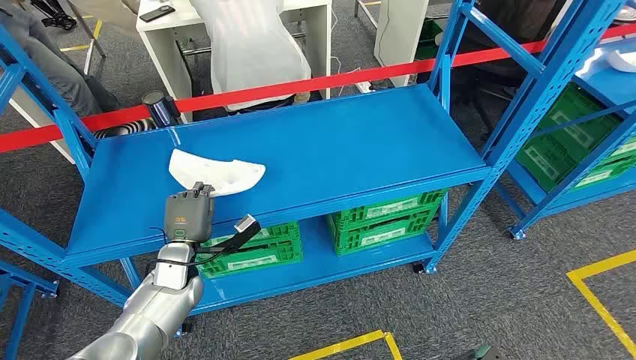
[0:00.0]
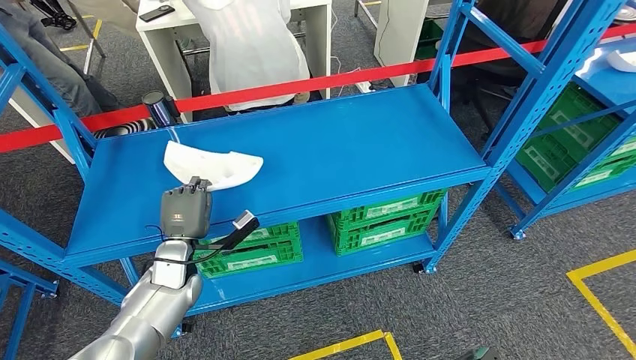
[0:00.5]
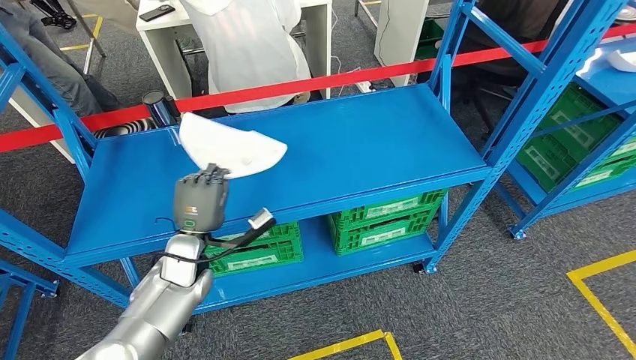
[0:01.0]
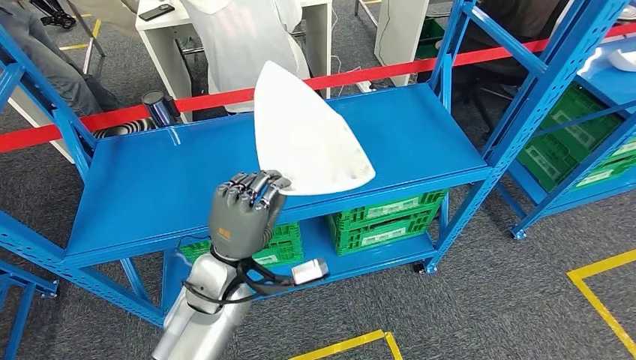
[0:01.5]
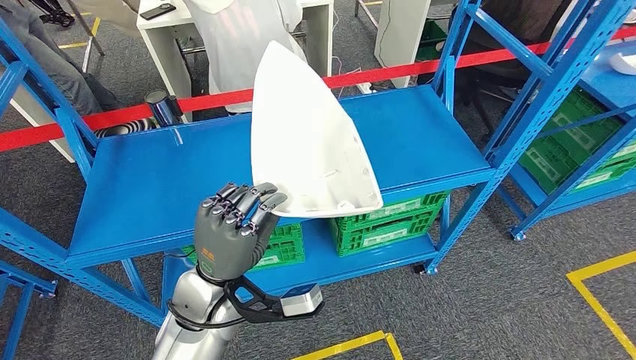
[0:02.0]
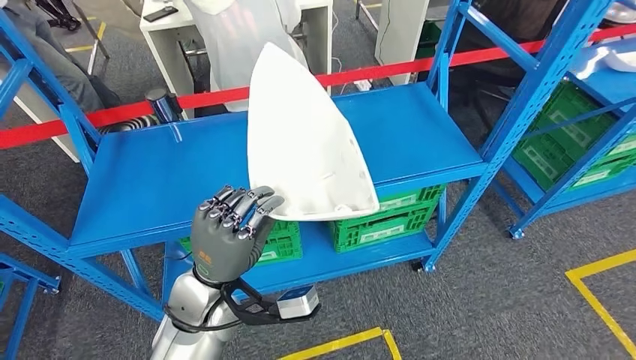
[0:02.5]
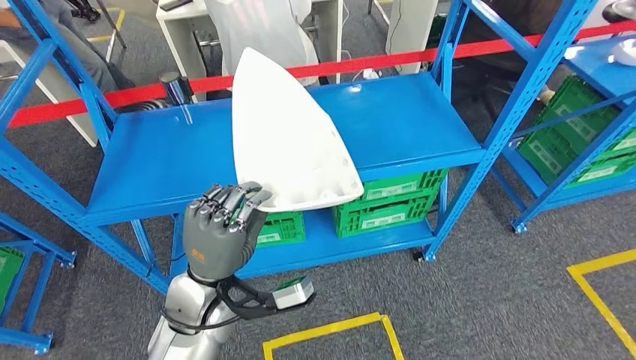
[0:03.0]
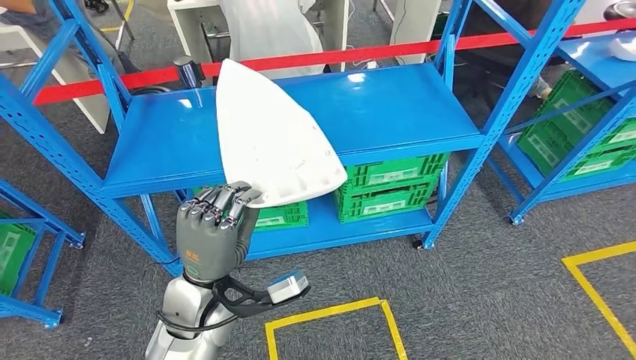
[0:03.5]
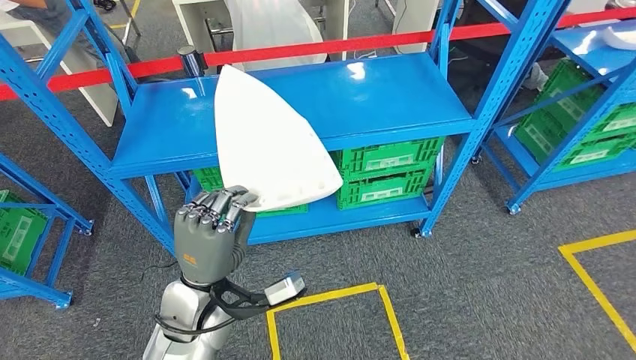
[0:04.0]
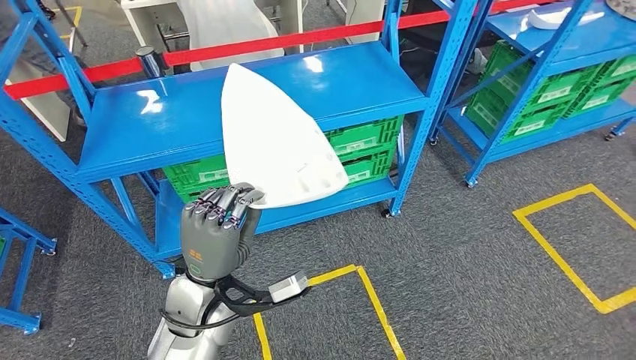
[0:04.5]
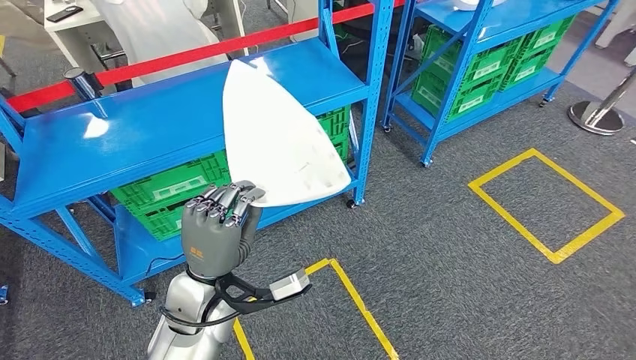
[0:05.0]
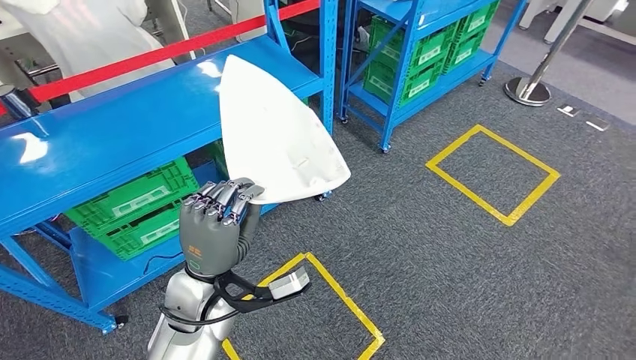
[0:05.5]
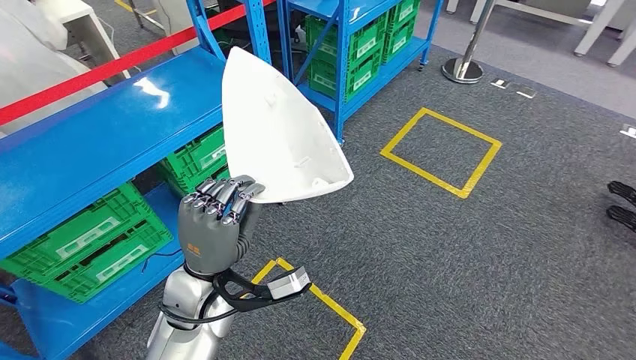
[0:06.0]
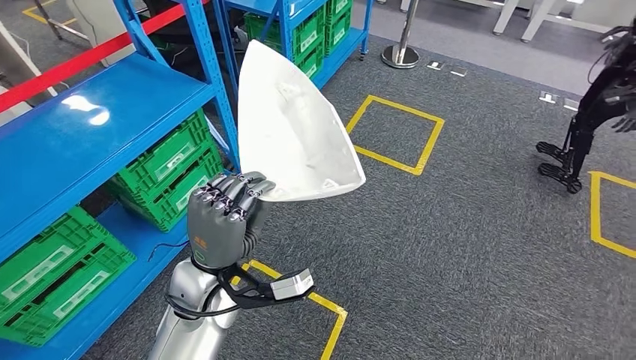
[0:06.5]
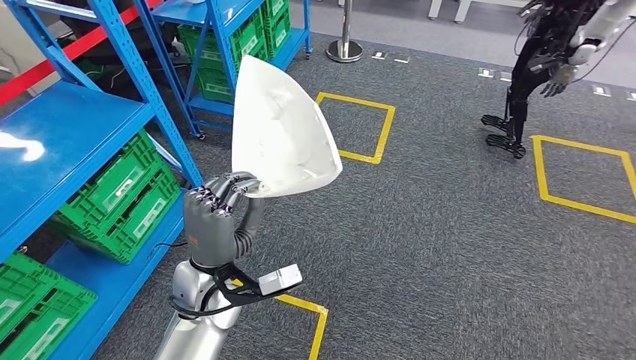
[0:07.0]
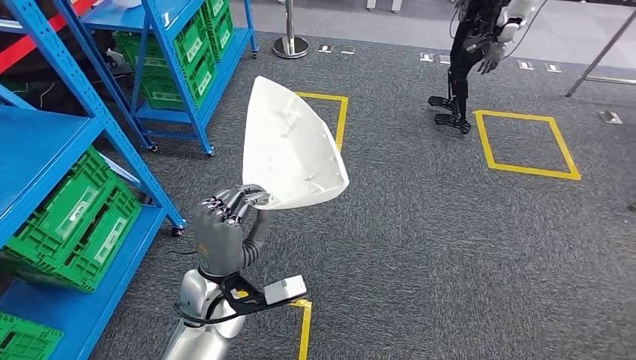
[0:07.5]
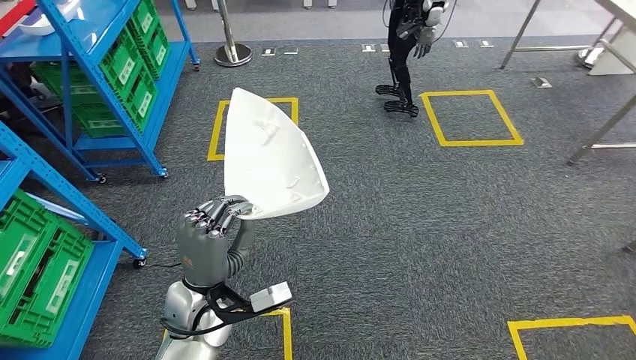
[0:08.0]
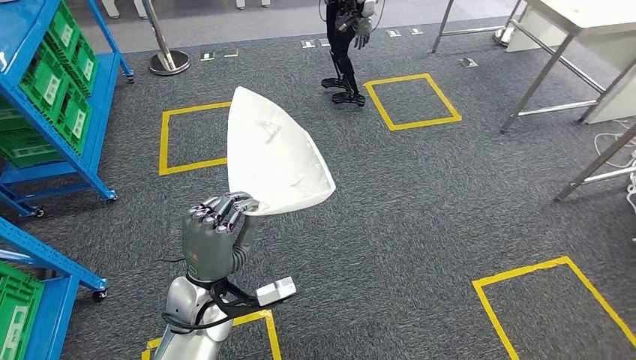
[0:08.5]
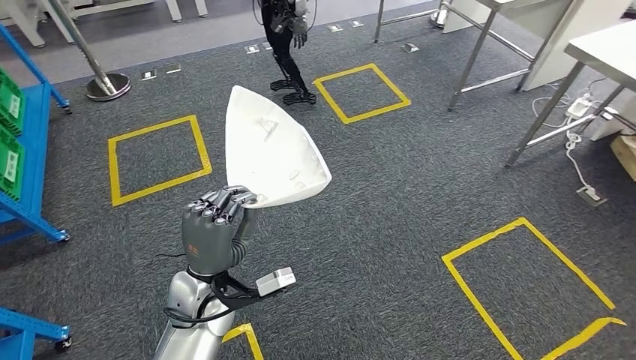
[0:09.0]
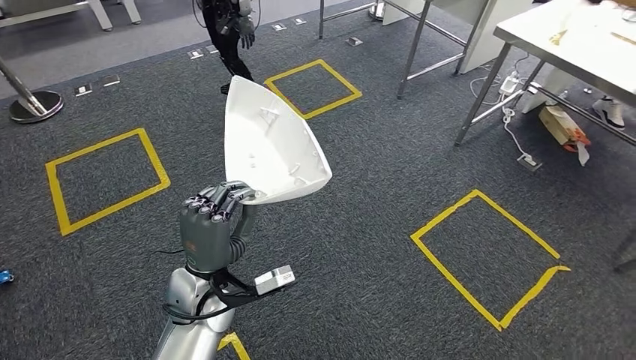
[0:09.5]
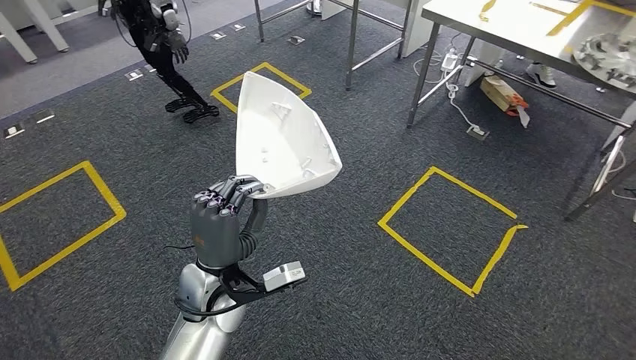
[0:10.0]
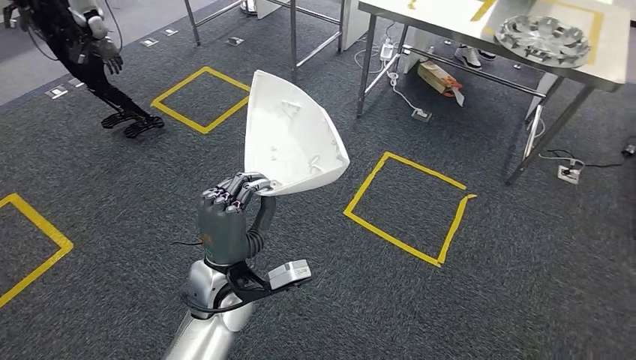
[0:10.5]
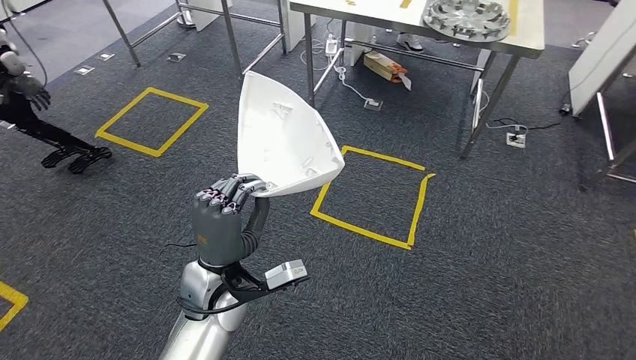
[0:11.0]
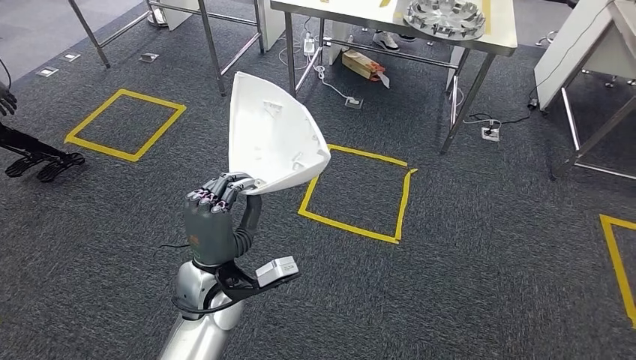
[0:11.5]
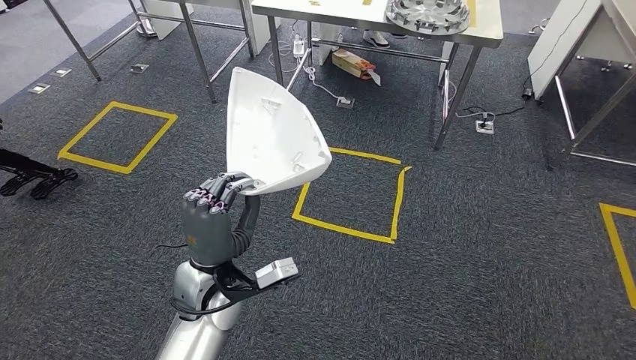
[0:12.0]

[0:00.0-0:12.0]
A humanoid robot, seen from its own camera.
Step, 0:00.0 to 0:03.5: Pick up the large material from the shelf.

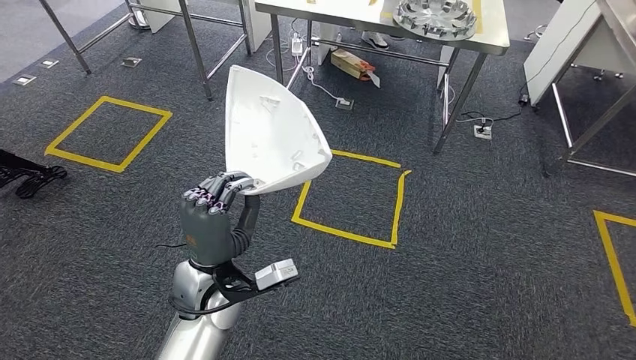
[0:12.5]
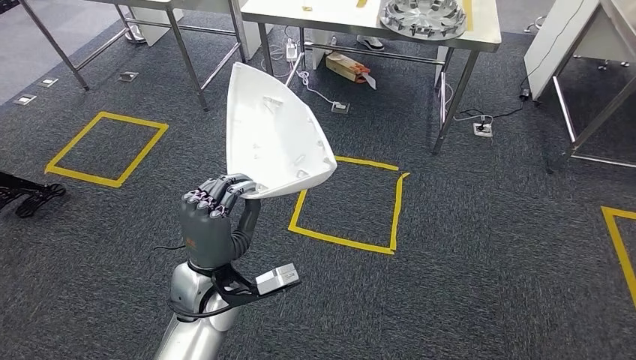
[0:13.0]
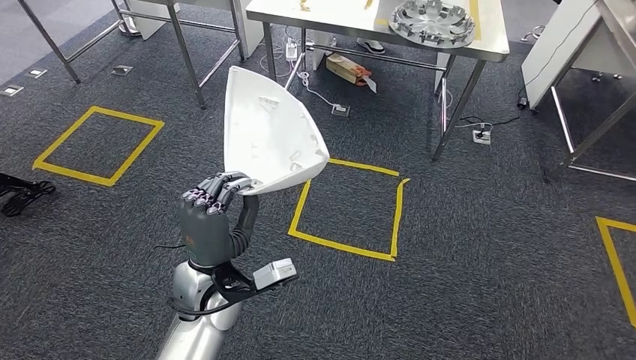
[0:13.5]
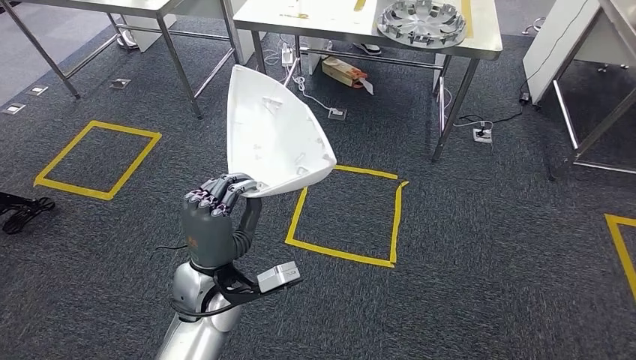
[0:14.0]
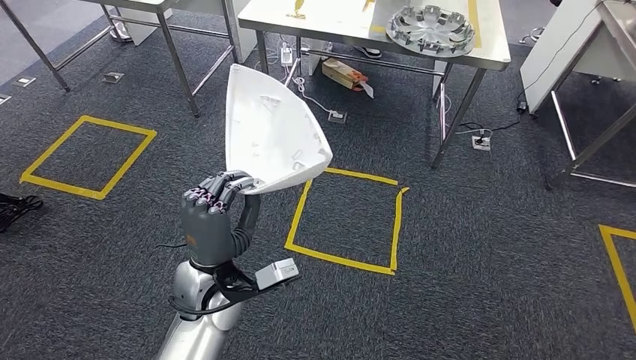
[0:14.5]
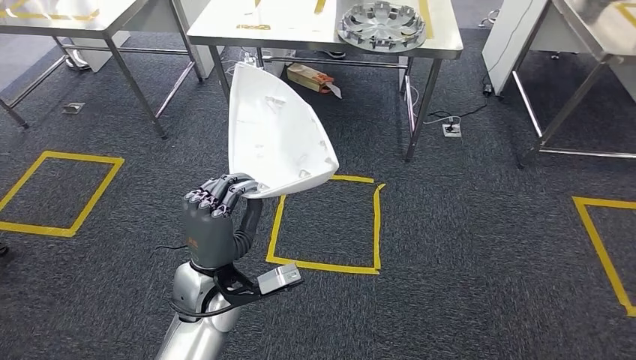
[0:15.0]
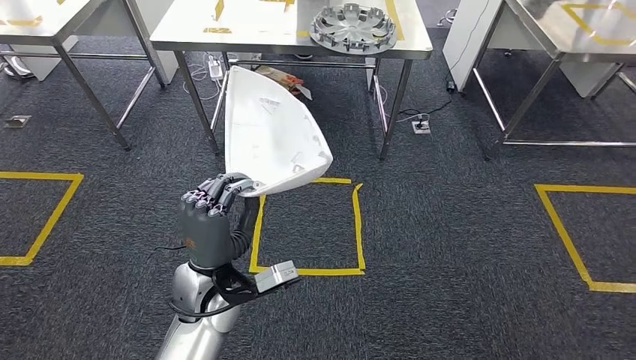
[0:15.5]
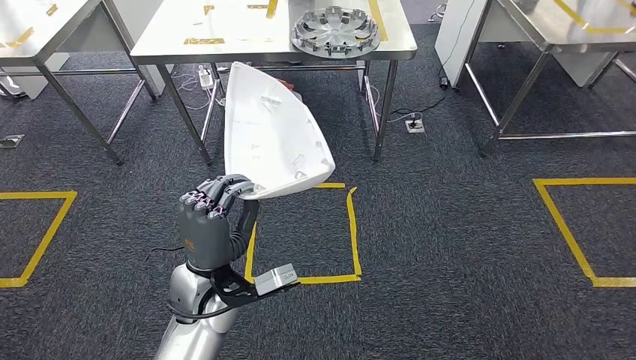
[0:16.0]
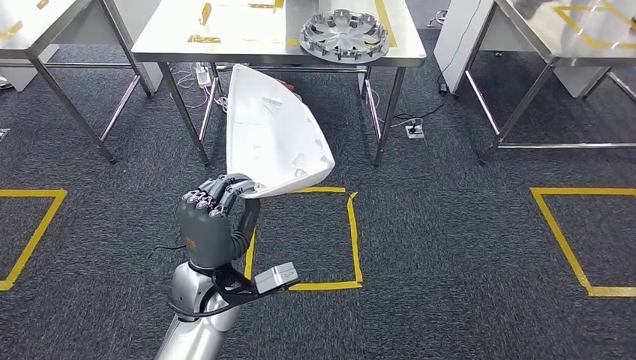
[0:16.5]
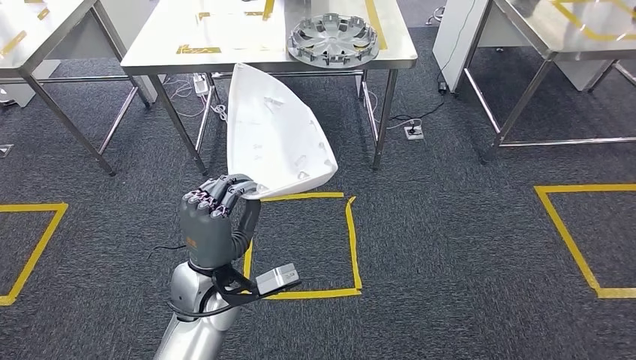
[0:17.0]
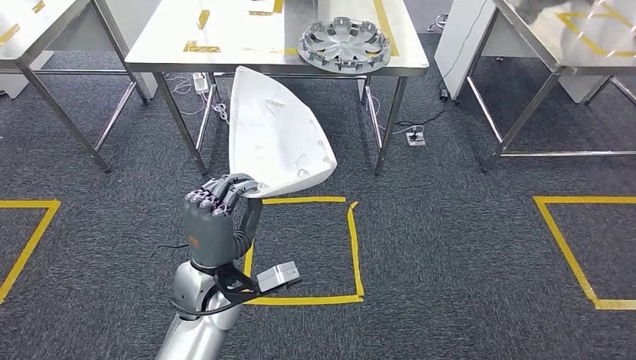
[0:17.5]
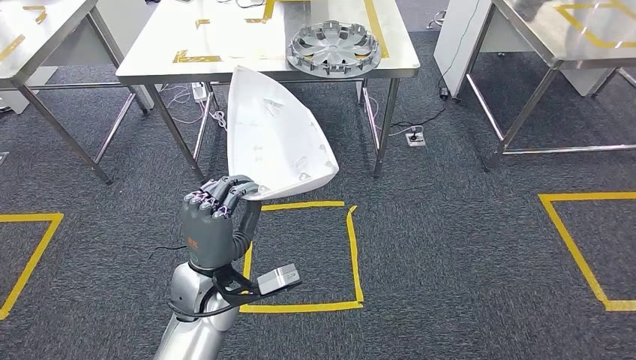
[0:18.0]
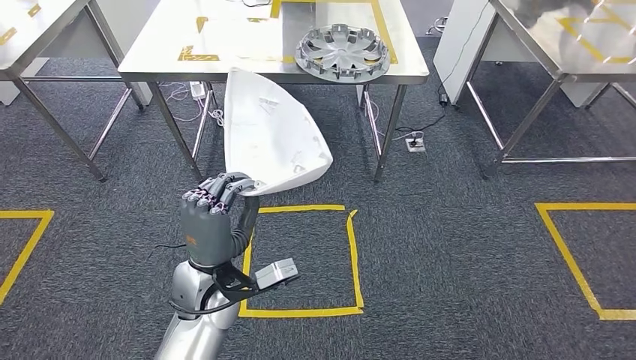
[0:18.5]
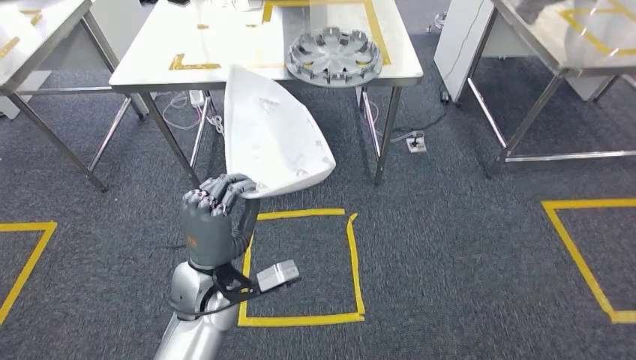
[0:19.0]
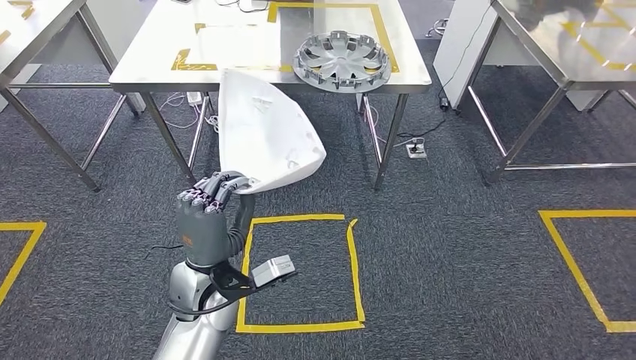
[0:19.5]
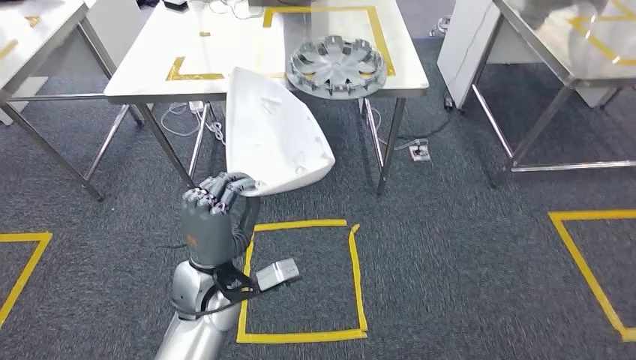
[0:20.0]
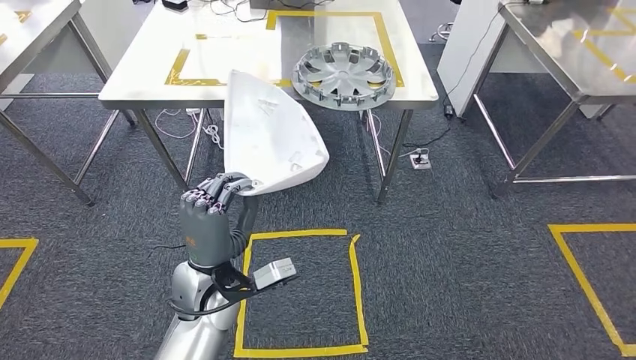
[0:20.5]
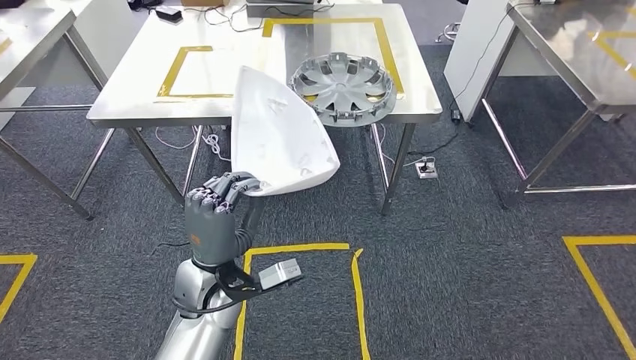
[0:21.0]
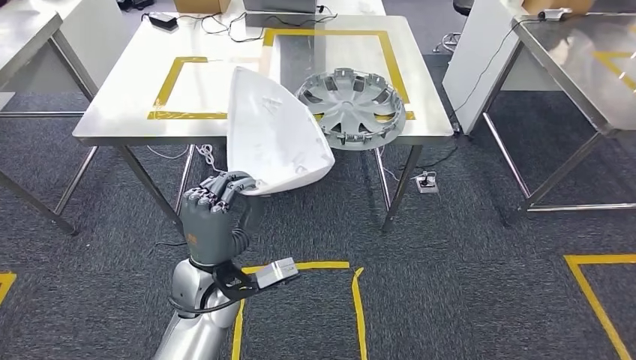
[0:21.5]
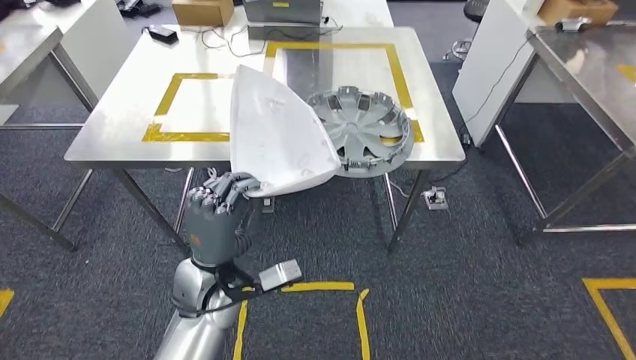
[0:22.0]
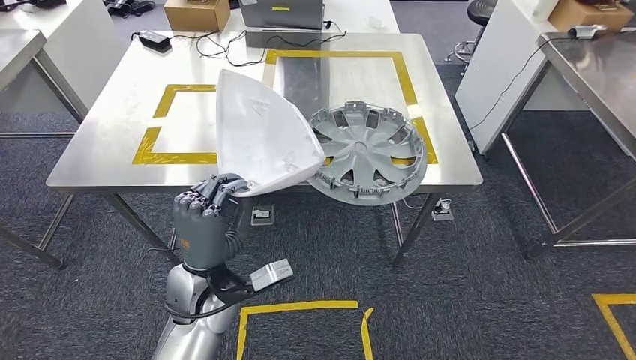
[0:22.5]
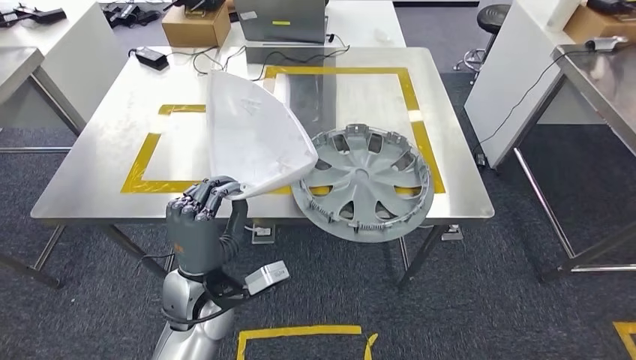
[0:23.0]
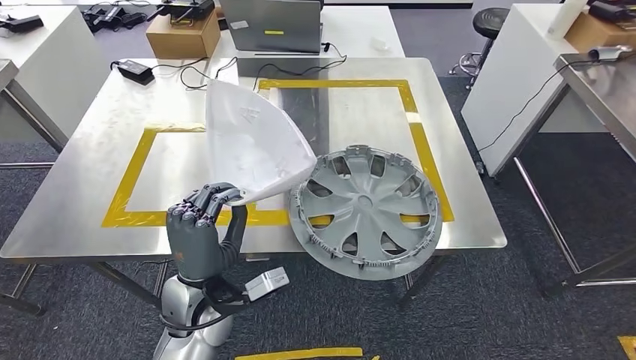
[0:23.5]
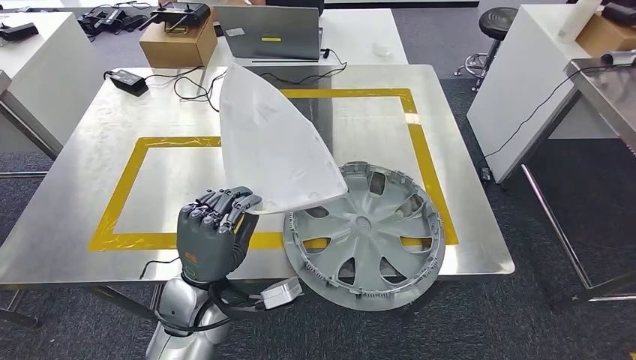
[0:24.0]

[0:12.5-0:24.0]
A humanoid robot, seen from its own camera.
Step, 0:12.5 to 0:23.5: Move the large material to the front of the workbench.
0:12.5 to 0:14.5: Both hands stay about where they are.
